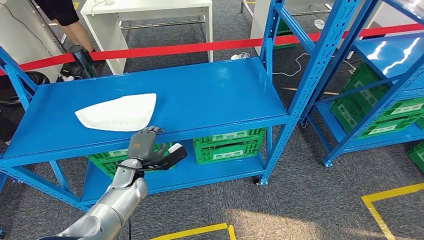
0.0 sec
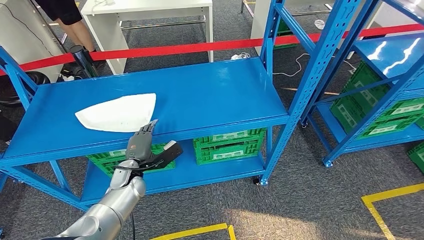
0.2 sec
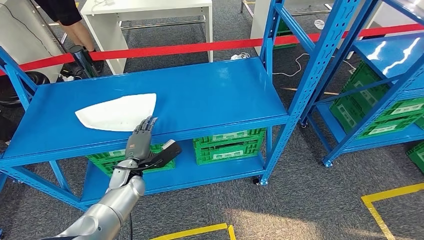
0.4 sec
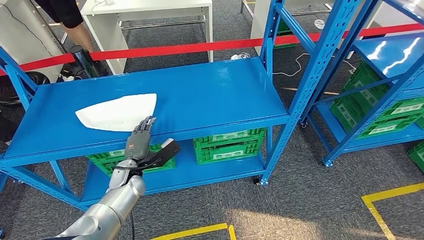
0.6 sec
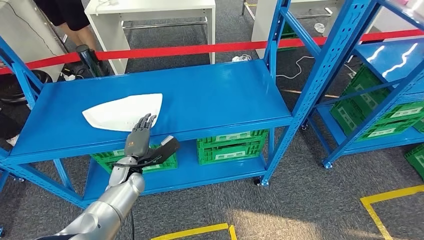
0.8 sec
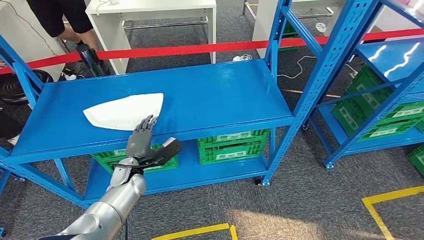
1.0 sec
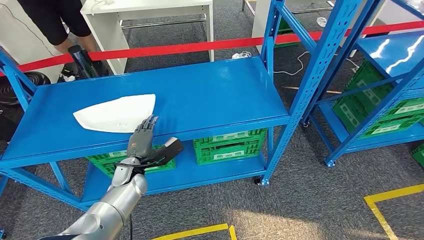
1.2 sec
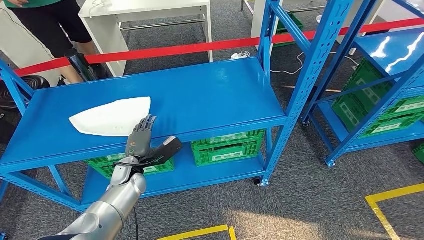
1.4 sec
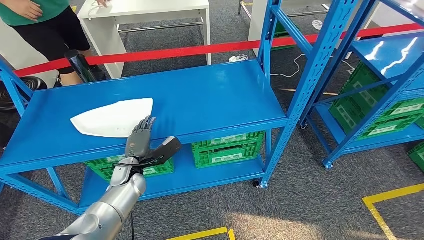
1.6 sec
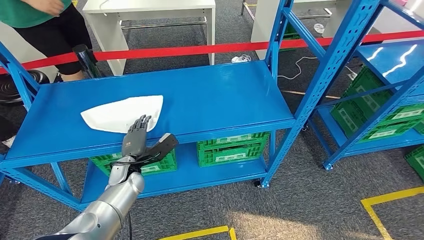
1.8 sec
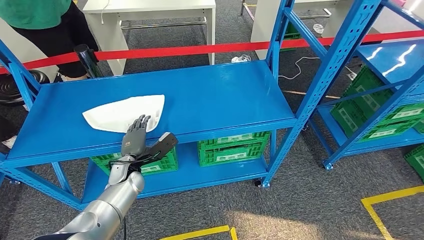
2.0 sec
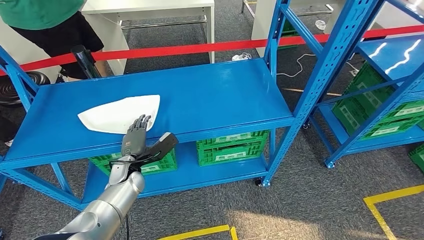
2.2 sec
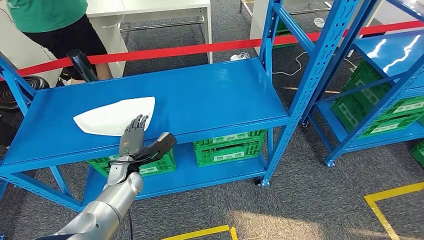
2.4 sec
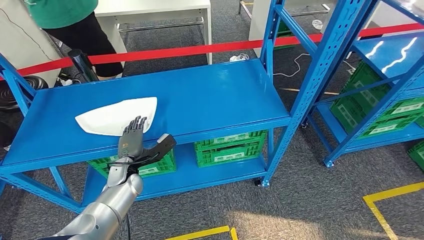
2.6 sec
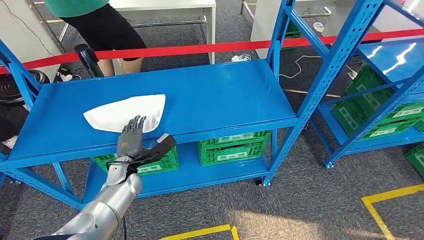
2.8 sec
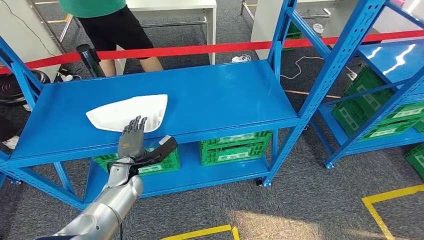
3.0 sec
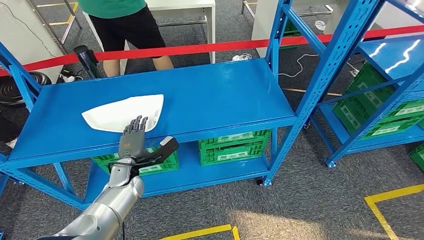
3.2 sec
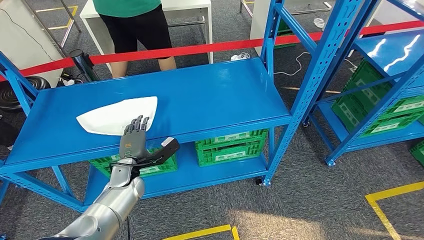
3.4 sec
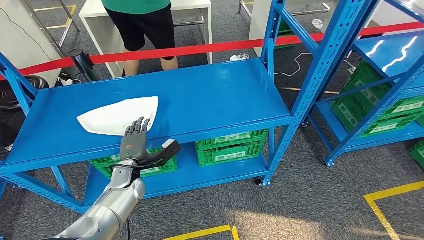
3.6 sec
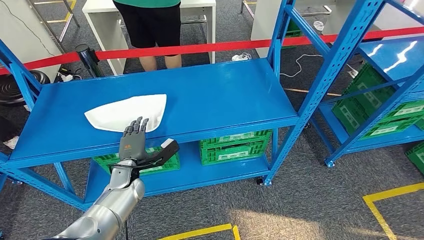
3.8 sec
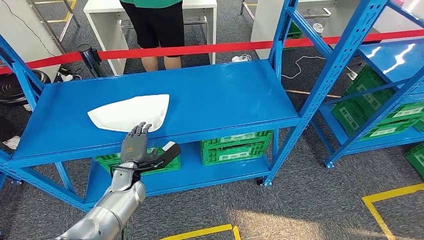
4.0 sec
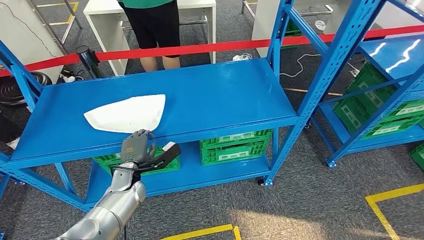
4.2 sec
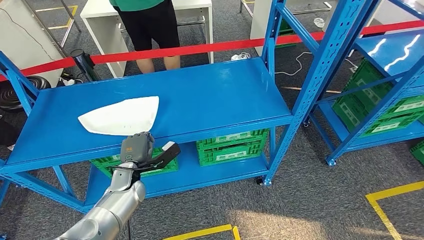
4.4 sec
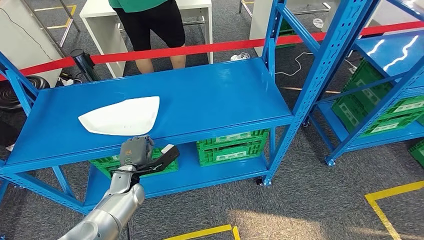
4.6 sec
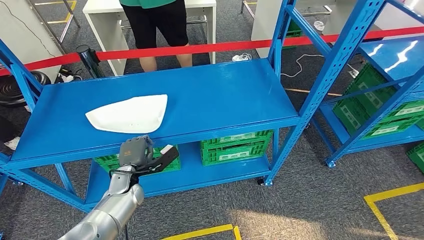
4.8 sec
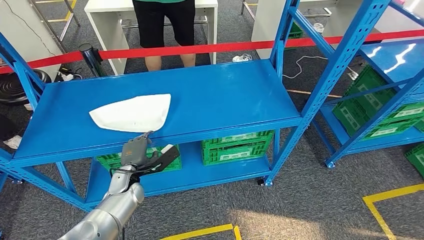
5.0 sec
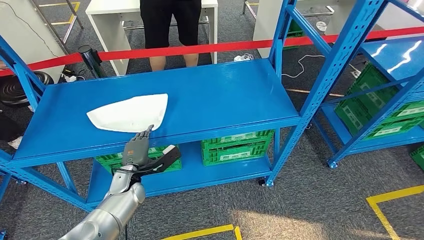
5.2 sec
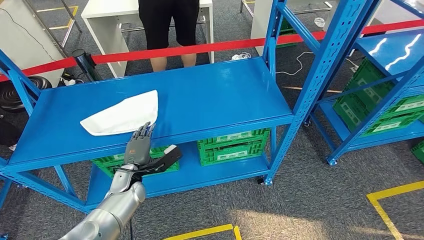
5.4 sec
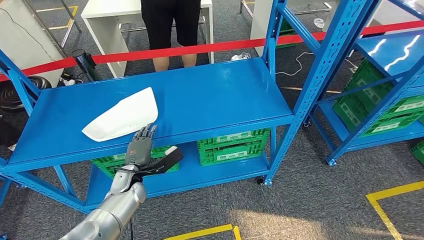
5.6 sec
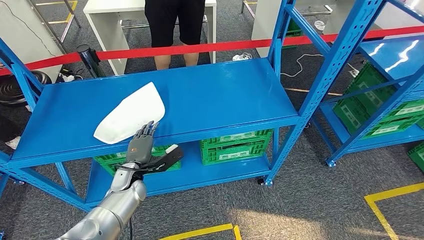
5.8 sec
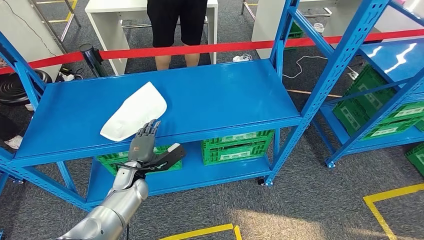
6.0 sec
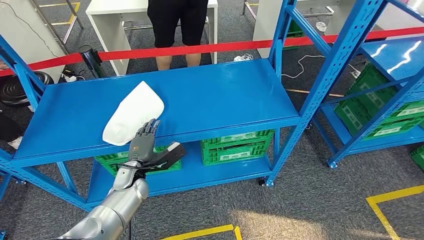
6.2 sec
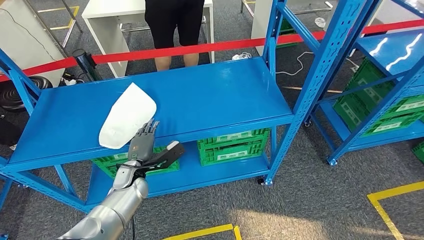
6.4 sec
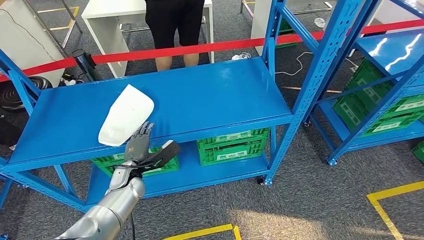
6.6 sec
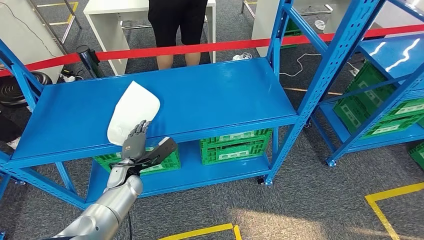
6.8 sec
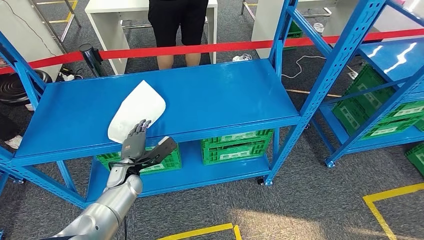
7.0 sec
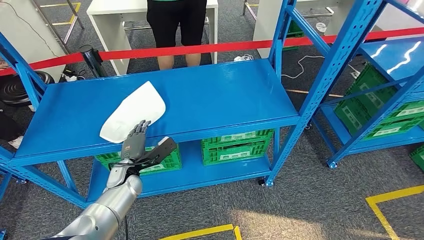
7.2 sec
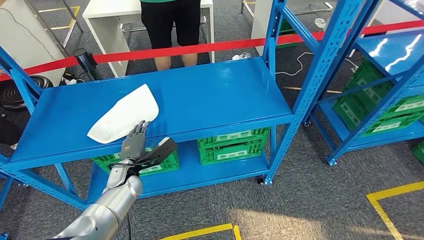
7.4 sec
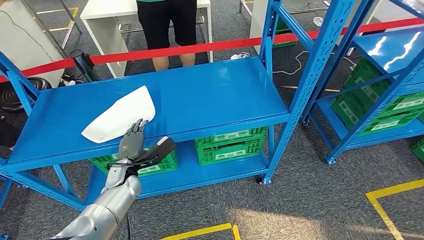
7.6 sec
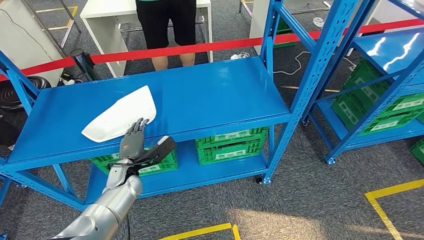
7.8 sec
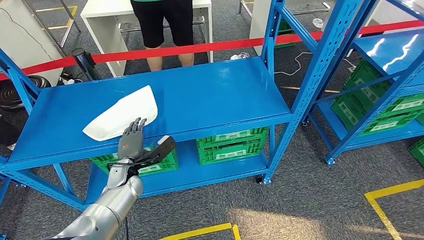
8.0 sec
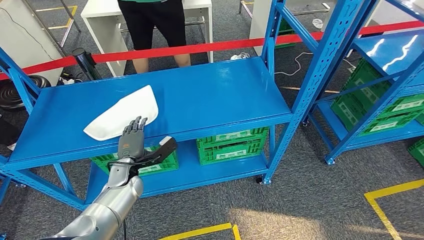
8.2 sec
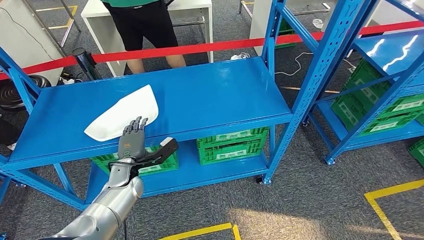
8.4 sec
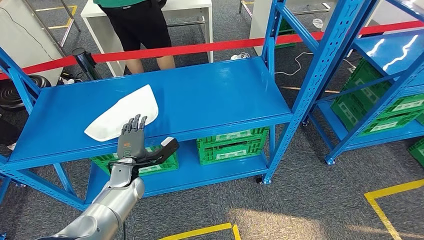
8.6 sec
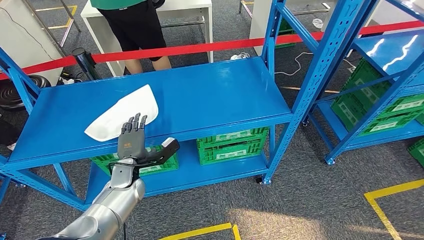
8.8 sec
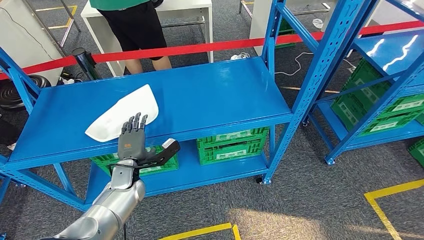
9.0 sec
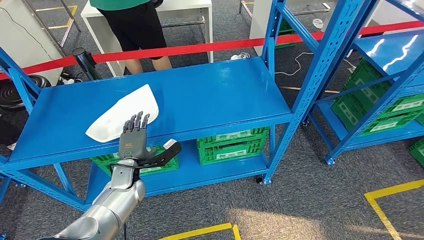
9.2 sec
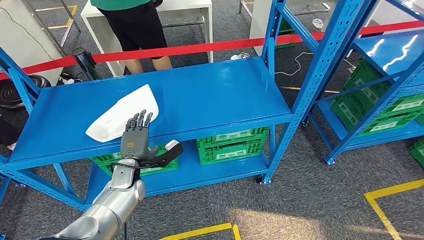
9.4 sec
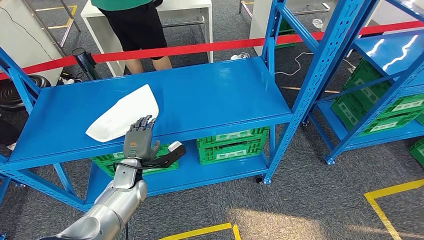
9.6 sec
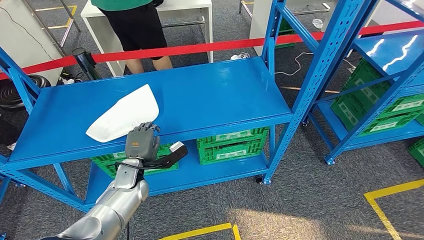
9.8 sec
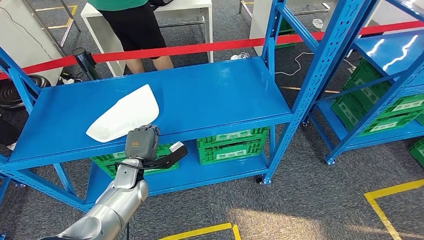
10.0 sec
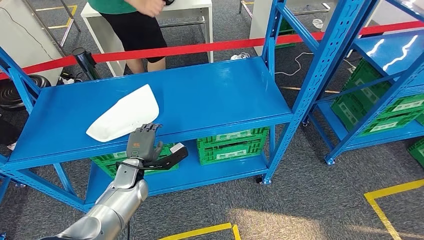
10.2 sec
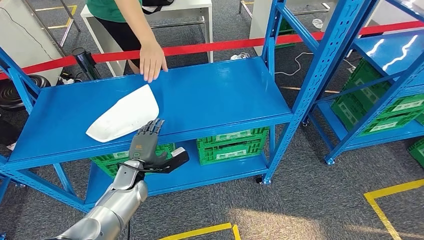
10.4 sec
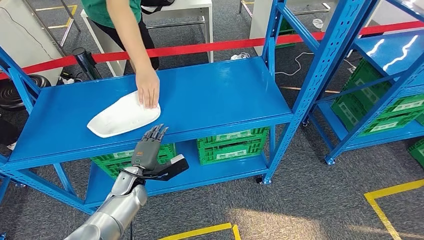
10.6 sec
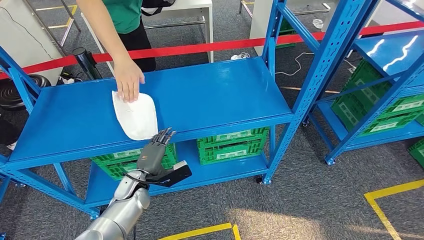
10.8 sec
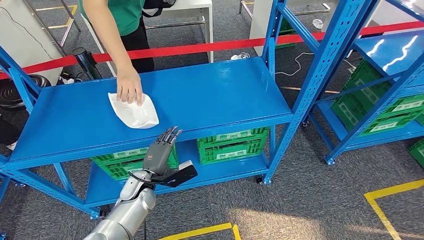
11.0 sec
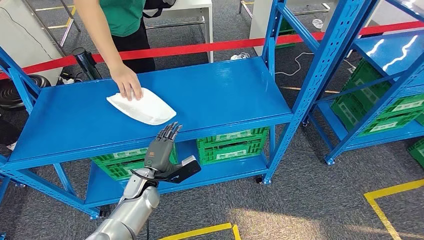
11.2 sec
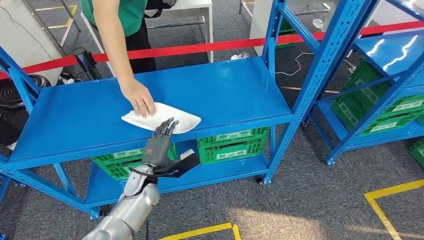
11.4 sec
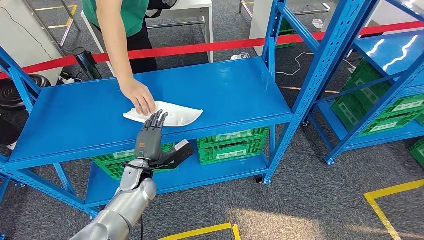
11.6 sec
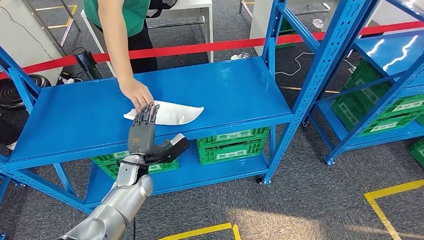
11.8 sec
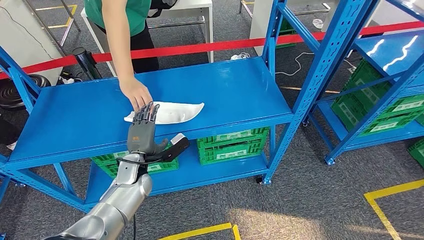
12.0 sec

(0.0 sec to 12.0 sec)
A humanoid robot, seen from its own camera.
7.6 sec - 9.0 sec: There are only small adjustments of the hands.
9.0 sec - 10.4 sec: The hands stay close to where they were, moving slightly.

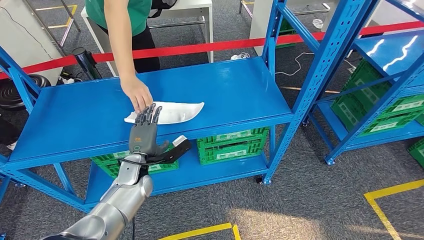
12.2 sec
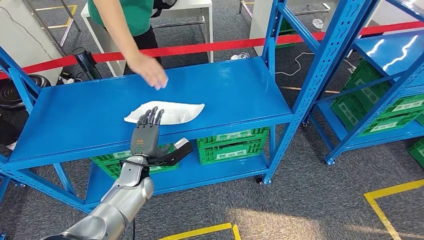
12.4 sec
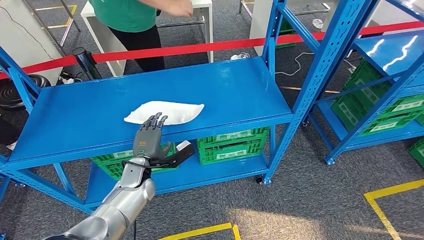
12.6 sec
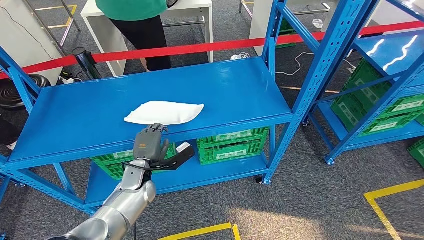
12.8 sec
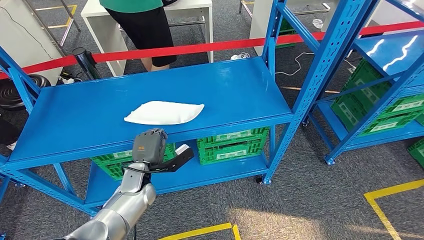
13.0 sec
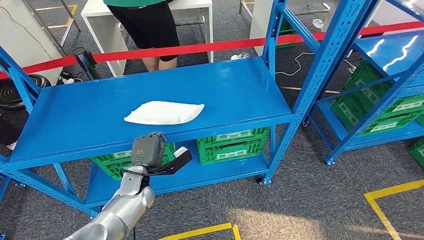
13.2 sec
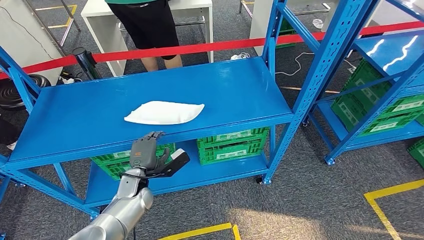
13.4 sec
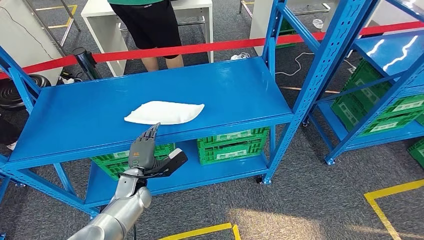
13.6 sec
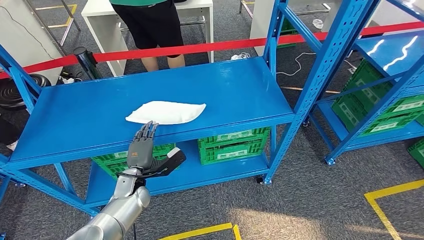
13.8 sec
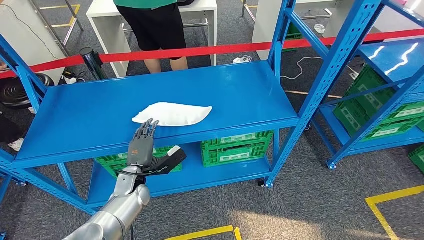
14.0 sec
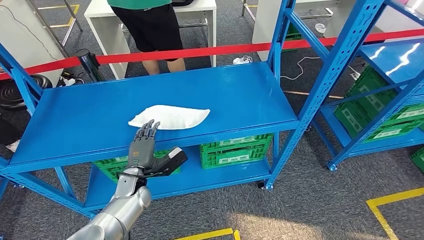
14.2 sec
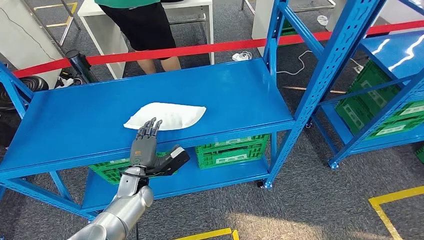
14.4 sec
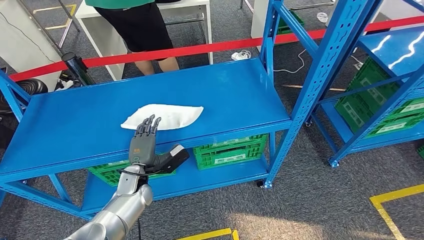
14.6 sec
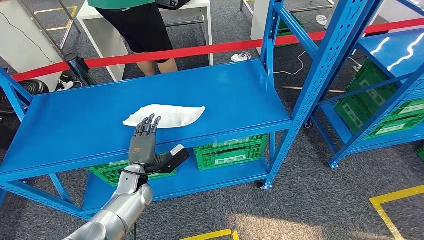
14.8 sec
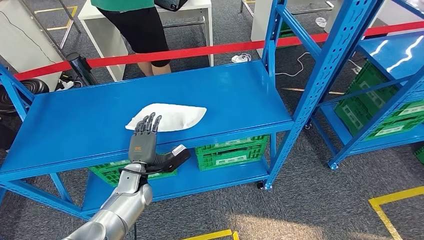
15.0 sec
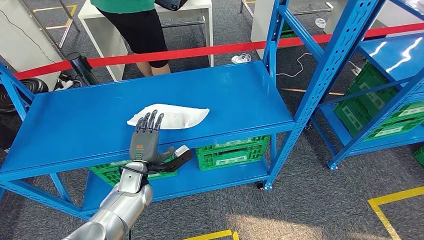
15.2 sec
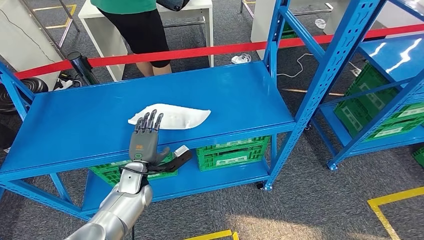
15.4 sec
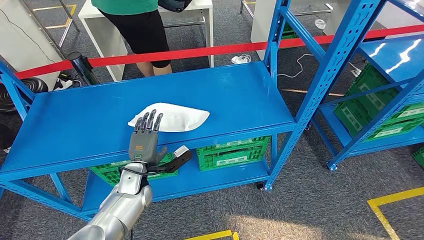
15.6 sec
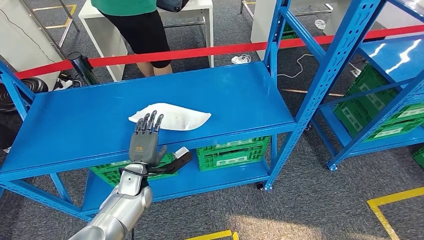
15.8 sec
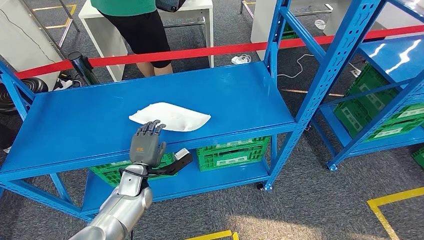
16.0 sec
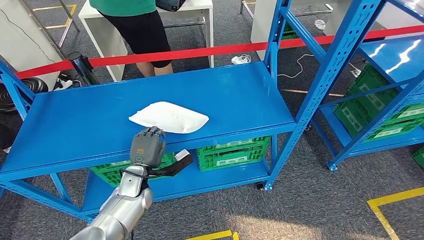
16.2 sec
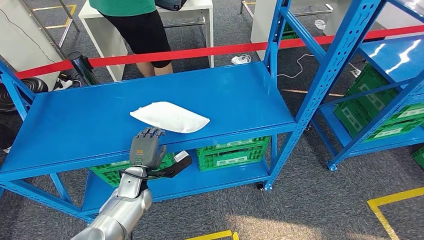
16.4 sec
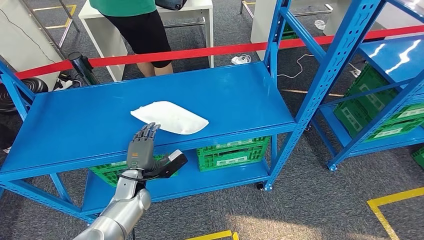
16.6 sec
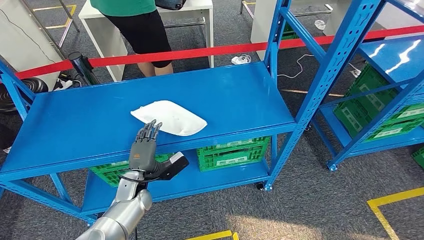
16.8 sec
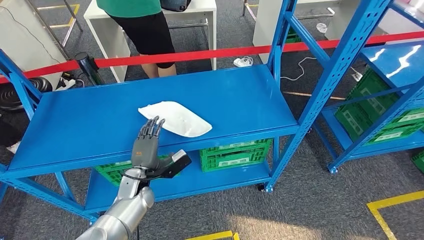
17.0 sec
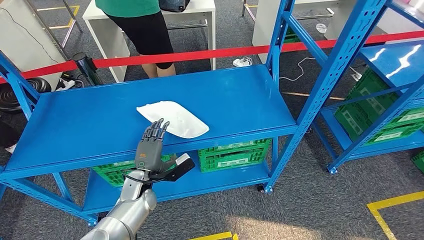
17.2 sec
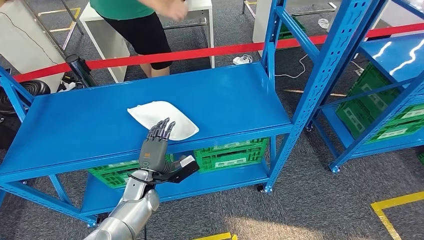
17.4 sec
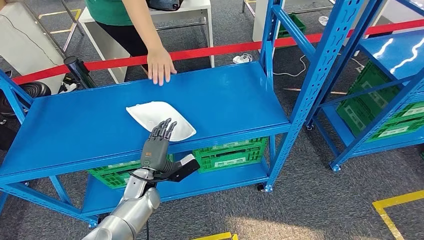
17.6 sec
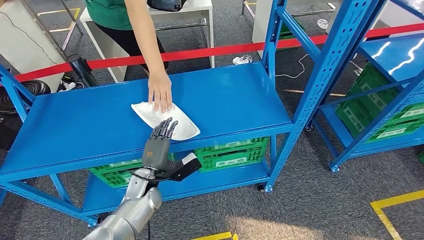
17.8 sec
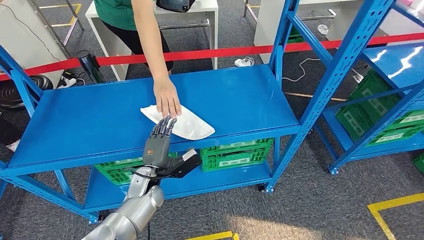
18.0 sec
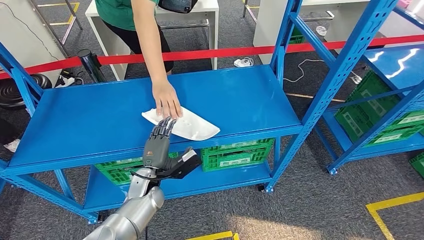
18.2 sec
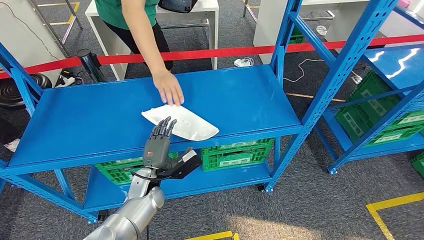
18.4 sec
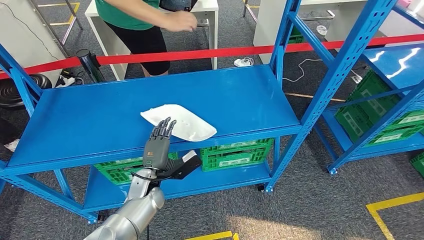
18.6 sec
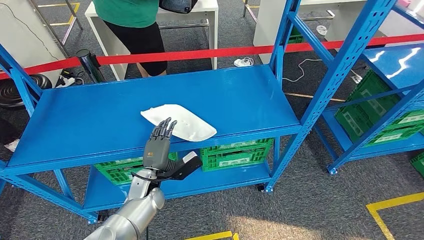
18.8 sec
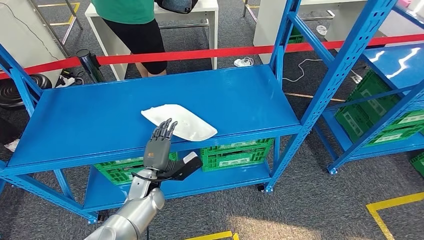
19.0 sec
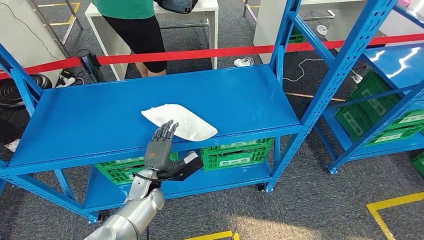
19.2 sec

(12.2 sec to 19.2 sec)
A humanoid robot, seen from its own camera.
12.2 sec - 13.6 sec: The hands stay close to where they were, moving slightly.
15.0 sec - 16.4 sec: The hands move only a little.
